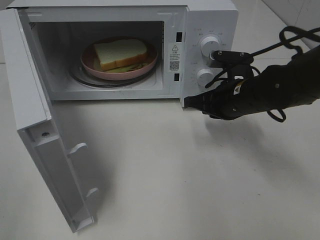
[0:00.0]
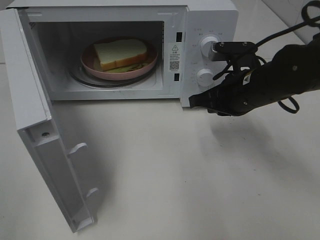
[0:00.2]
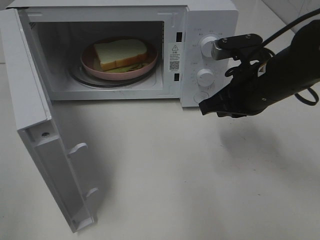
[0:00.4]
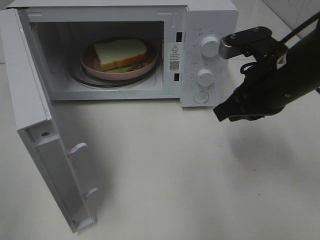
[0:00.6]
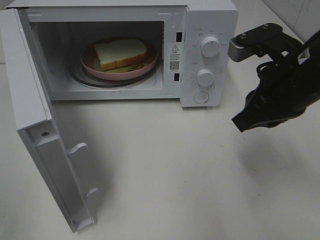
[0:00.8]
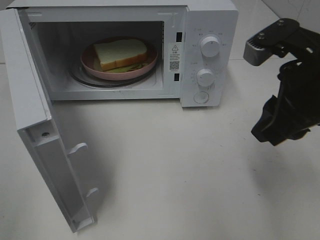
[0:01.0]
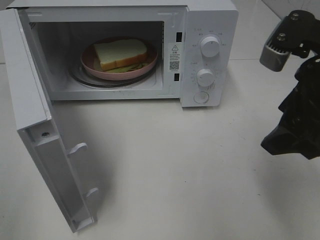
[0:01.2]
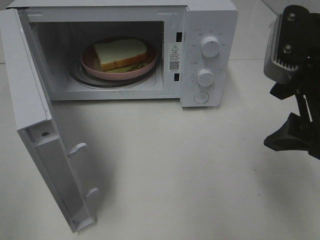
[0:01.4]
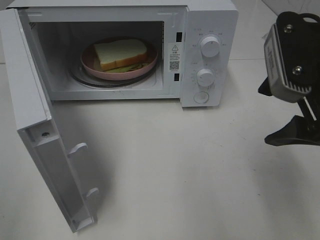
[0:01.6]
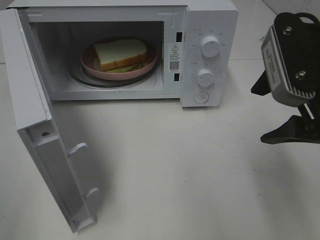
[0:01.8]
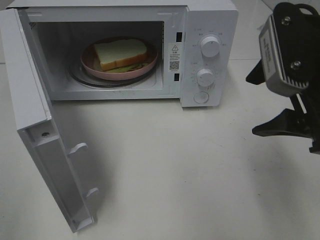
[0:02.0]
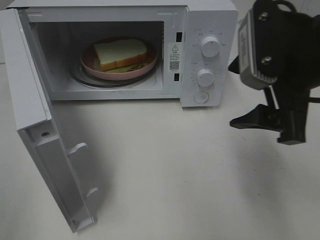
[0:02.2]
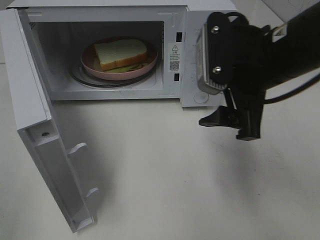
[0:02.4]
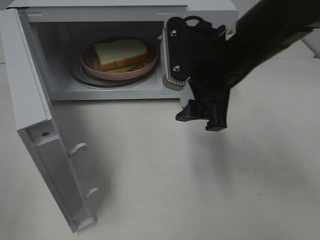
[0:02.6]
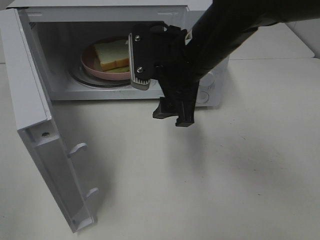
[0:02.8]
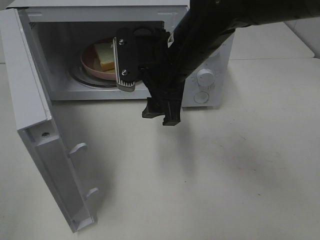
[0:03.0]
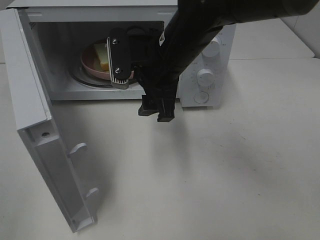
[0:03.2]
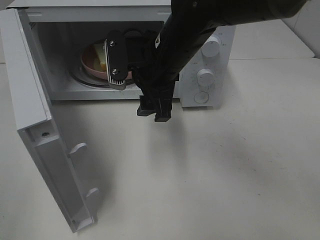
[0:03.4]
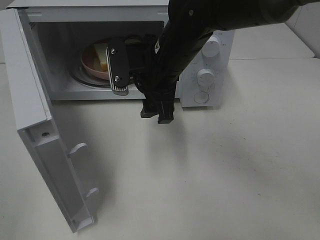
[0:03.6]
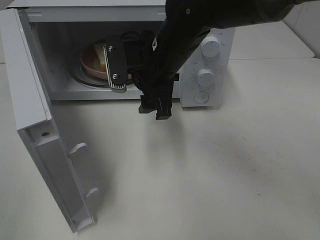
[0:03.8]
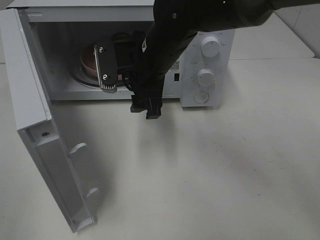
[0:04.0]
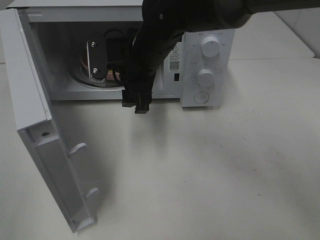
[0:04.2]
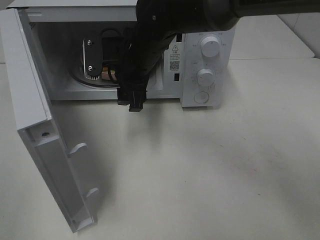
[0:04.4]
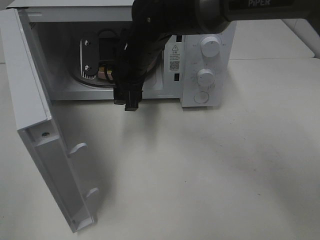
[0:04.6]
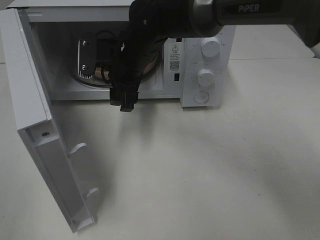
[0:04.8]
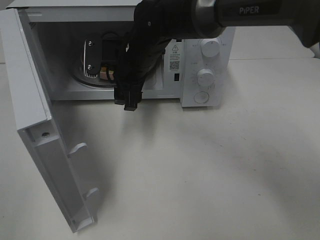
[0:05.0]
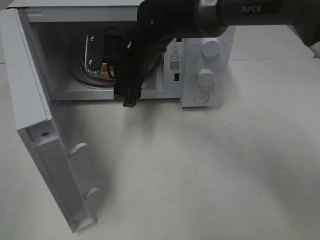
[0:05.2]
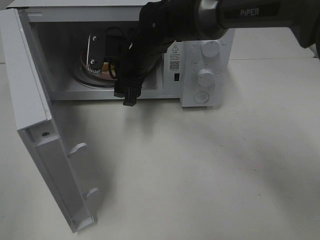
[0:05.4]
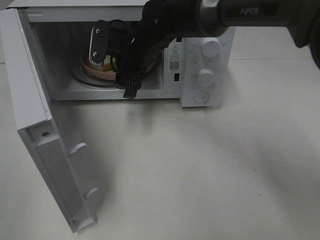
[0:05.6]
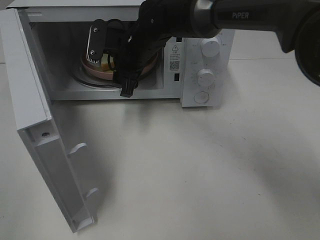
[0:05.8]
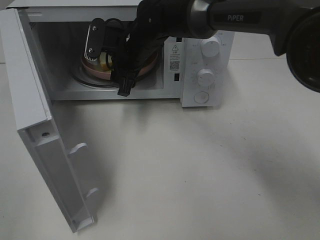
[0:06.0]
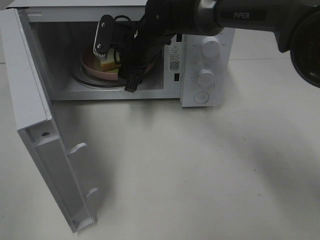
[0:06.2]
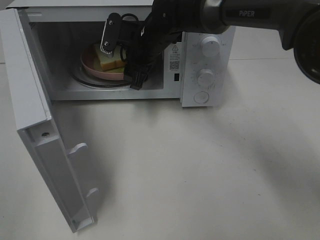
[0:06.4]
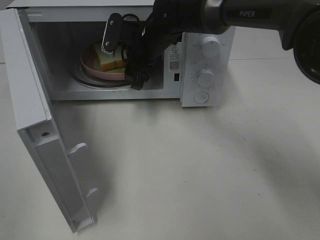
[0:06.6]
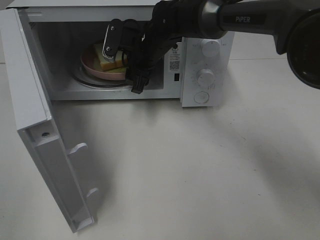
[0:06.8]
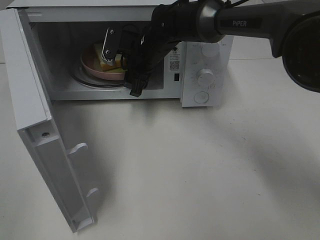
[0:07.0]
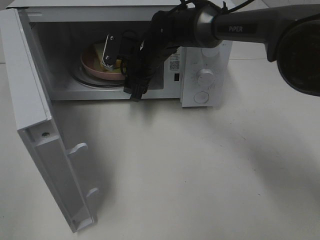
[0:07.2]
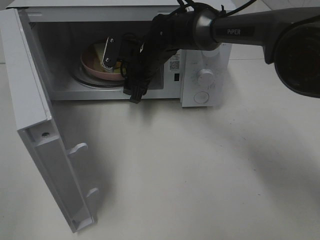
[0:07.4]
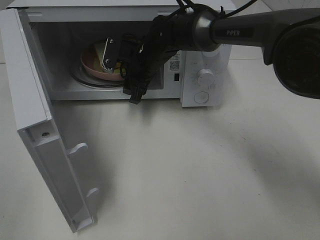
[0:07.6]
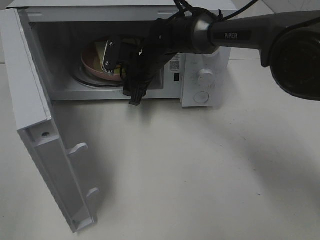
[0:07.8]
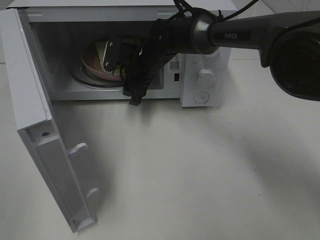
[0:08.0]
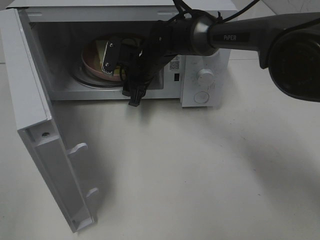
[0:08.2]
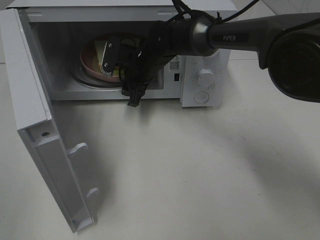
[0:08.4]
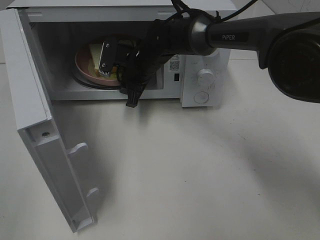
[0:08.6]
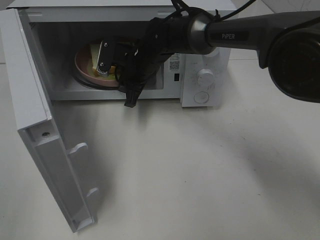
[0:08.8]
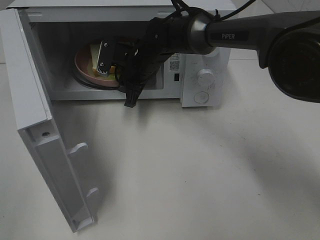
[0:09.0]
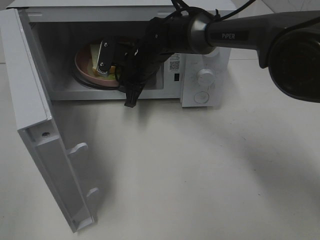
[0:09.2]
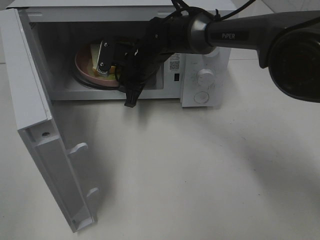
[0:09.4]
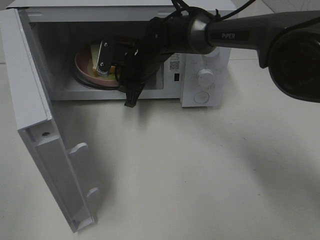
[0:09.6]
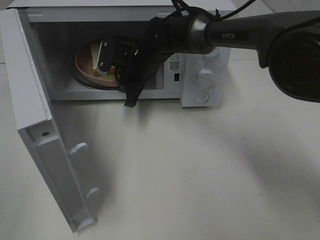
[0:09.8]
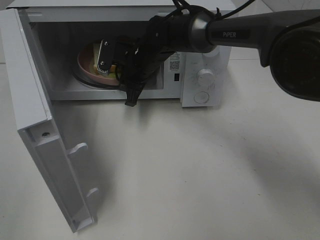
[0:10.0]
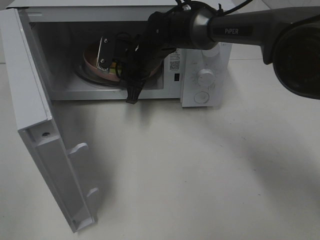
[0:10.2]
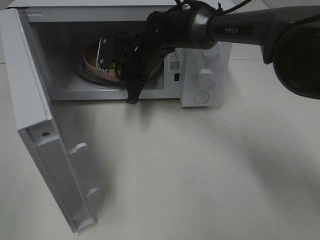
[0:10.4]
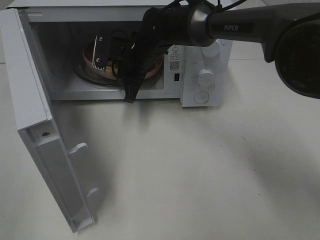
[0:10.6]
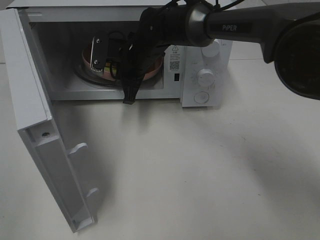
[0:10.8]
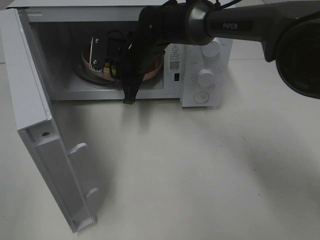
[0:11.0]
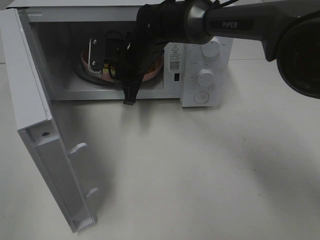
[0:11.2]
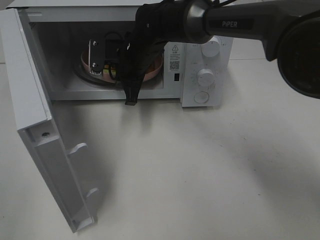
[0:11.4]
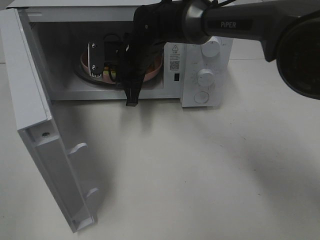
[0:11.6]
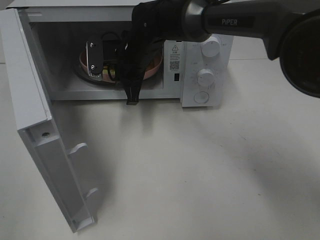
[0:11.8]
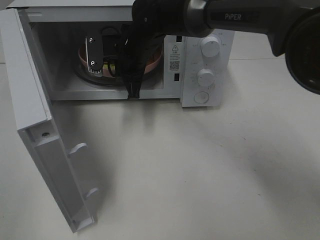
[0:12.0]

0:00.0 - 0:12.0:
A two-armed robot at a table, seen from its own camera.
Task of the whole recording: Heat Sandwich.
Step, 0:00.2 - 0:10.8: Right hand: grab the plate with the sandwich.
0:00.0 - 0:01.6: The right gripper goes some 20 cm upward and backward, and opens.
0:01.6 - 0:03.0: The right gripper is displaced to the left and forward by about 20 cm.
0:03.0 - 0:04.4: The right gripper is displaced forward and to the left by roughly 10 cm.
0:04.4 - 0:06.0: The right gripper heads forward, covering some 5 cm.
0:06.0 - 0:07.6: The right gripper moves roughly 5 cm.
0:07.6 - 0:09.0: The right gripper closes up.
0:09.0 - 0:12.0: The grippers move only a little.

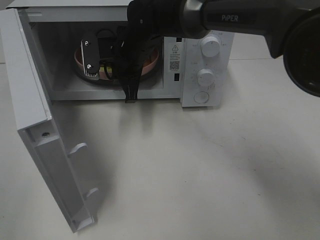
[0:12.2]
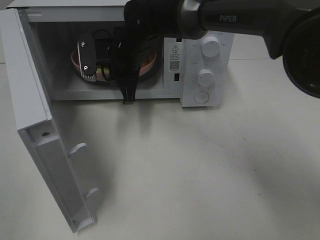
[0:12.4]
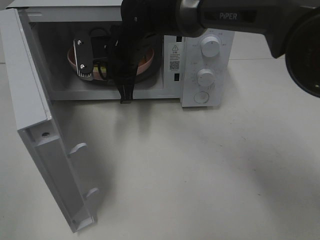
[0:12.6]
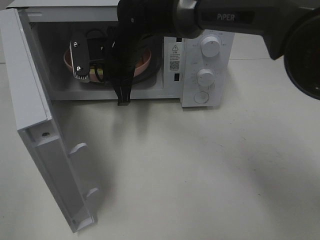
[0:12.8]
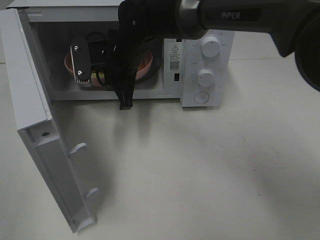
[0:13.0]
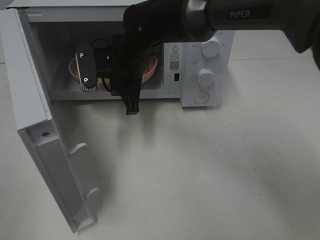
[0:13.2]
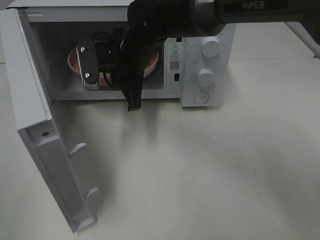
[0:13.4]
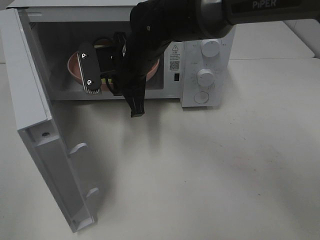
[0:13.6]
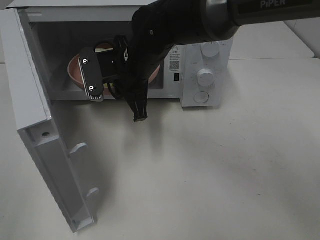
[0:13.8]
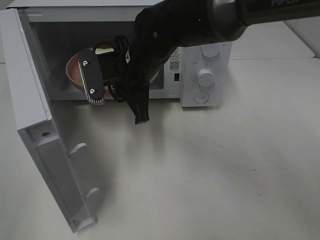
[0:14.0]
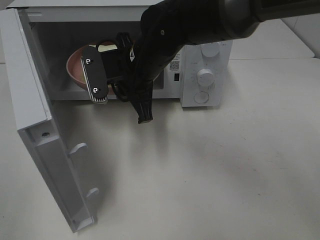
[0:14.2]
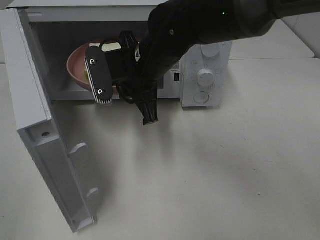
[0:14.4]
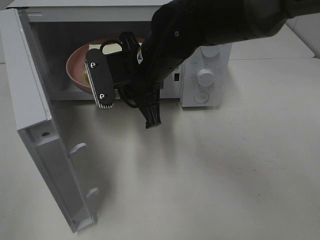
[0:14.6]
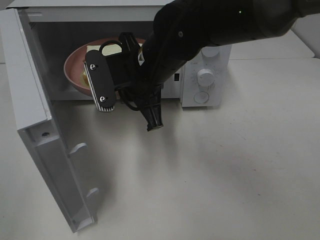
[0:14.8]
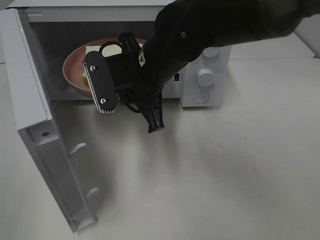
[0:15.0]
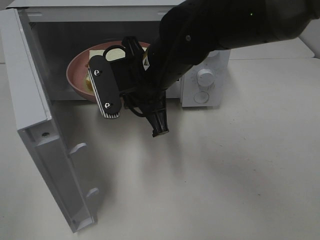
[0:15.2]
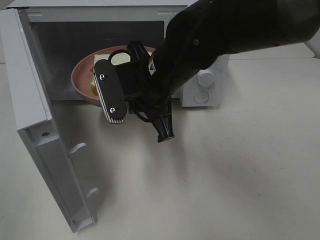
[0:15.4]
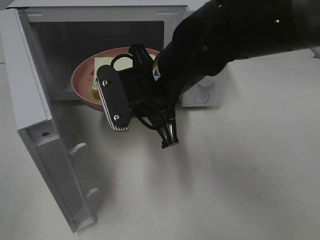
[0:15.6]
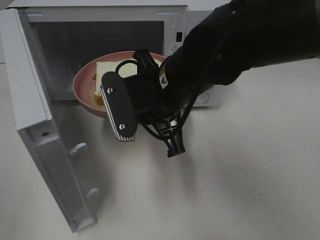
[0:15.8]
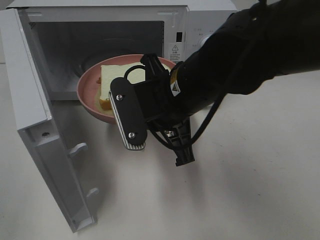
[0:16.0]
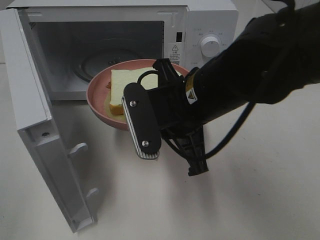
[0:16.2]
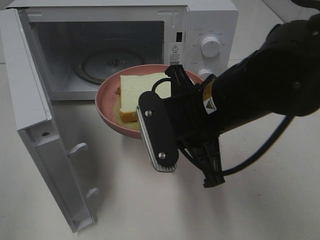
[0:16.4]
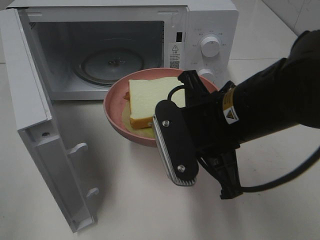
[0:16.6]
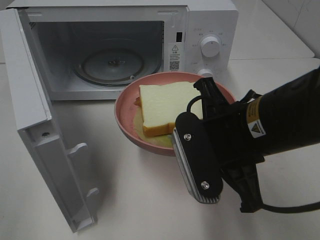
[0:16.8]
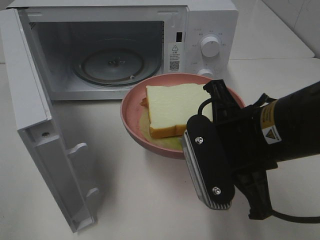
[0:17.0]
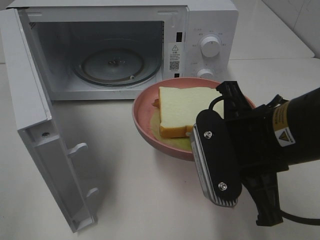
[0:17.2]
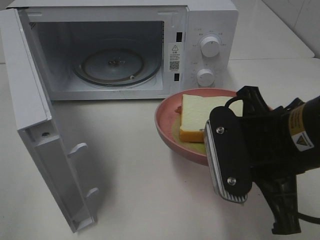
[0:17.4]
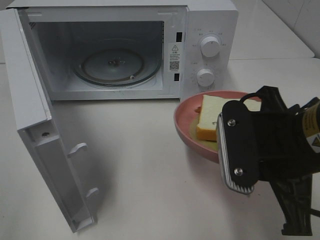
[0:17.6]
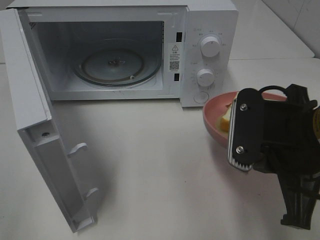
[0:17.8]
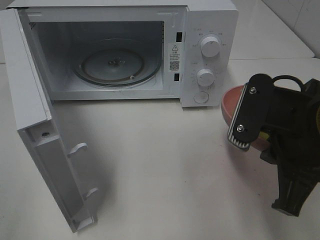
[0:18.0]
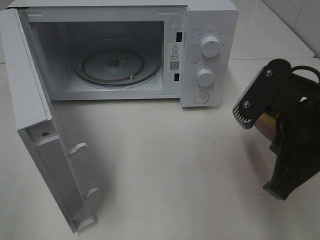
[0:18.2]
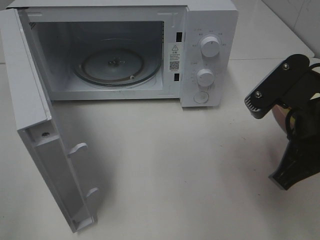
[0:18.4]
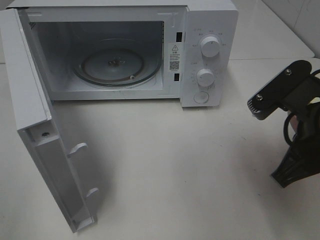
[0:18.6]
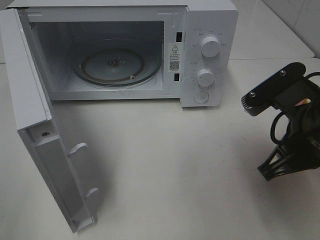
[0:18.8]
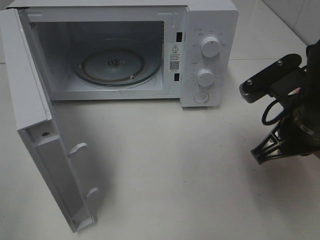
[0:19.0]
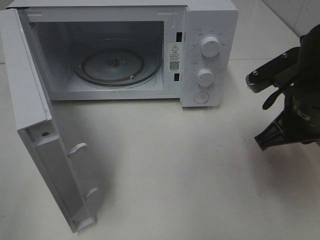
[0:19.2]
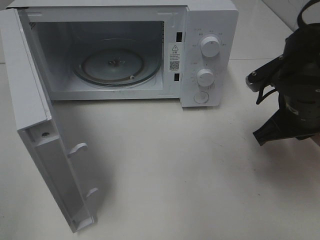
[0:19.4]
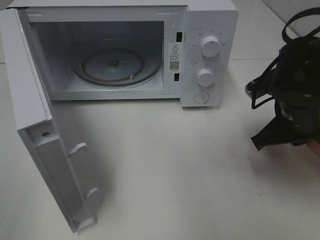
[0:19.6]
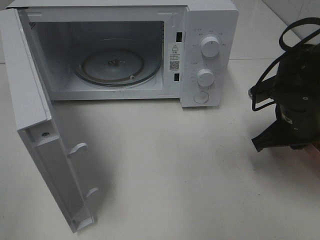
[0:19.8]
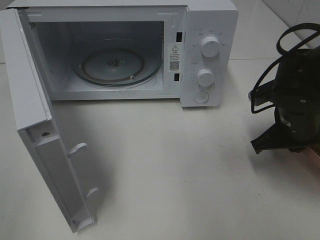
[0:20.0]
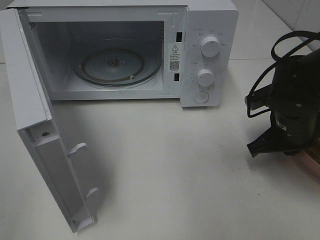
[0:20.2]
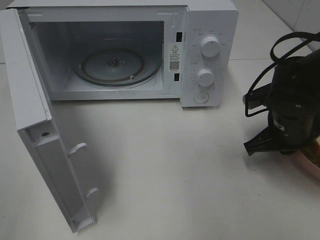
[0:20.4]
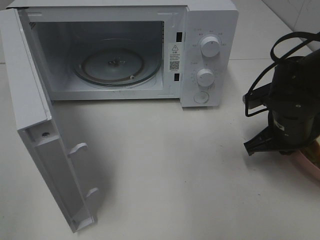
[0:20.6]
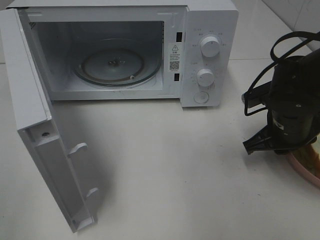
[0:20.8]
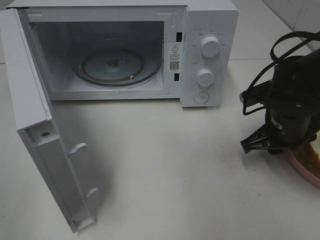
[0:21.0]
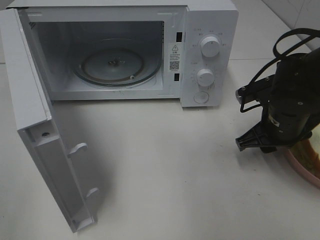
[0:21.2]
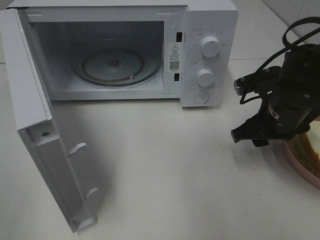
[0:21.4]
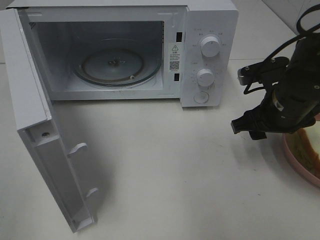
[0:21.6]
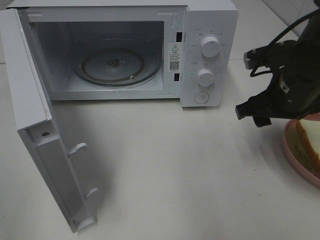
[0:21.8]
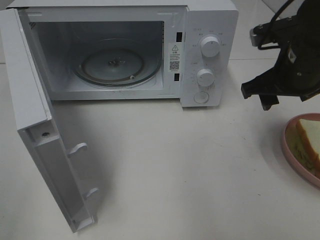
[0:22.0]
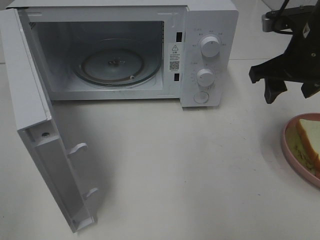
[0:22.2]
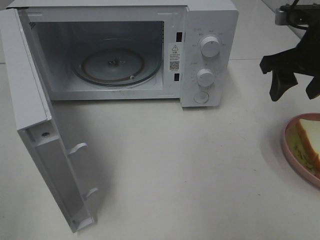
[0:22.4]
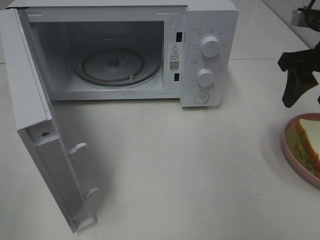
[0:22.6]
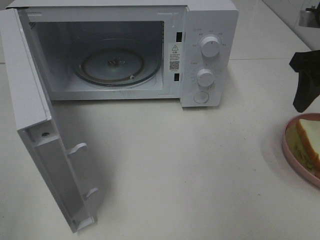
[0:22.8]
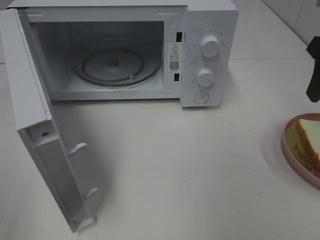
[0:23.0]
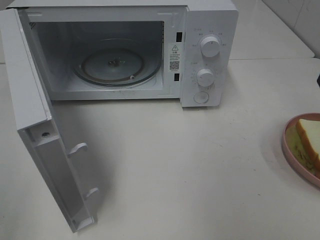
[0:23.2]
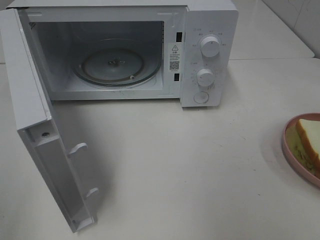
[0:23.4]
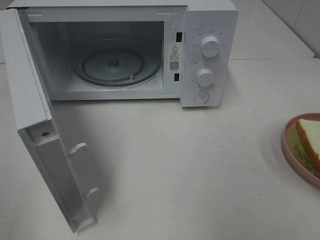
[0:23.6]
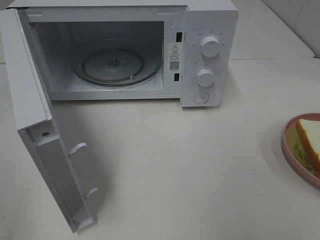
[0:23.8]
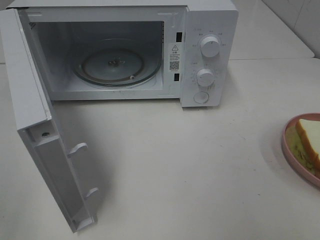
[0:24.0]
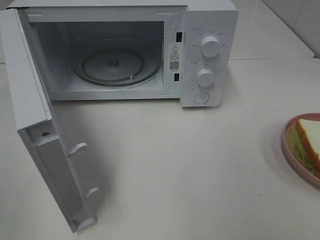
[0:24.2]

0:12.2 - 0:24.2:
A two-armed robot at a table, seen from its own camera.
Task of the whole recording: Heat Sandwich.
Step, 0:12.2 - 0:22.6: Right hand: place the plate on the table.
0:12.2 - 0:13.8: The right gripper heads backward, covering some 5 cm.
0:13.8 - 0:15.2: The right gripper heads backward, covering roughly 5 cm.
0:15.2 - 0:16.6: The right gripper heads backward and to the right, covering some 15 cm.
0:16.6 - 0:18.2: The right gripper moves to the right, some 10 cm.
0:18.2 - 0:19.8: The right gripper shifts roughly 15 cm forward and downward.
0:19.8 - 0:21.2: The right gripper opens its fingers.
0:21.2 - 0:22.6: The right gripper travels upward and to the right by roughly 15 cm.
0:22.6 - 0:24.2: The right gripper shifts roughly 25 cm backward.
